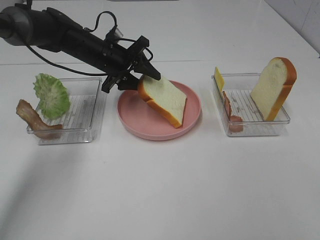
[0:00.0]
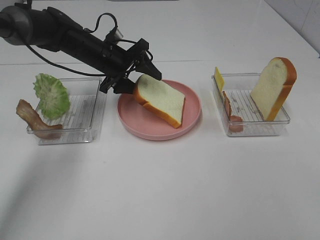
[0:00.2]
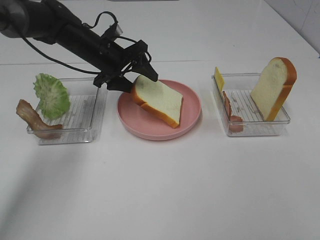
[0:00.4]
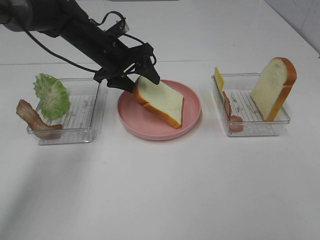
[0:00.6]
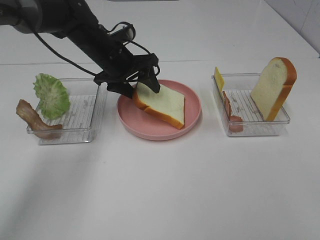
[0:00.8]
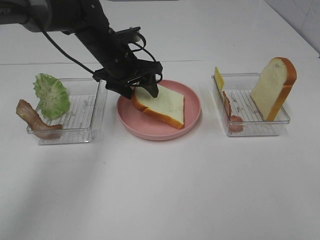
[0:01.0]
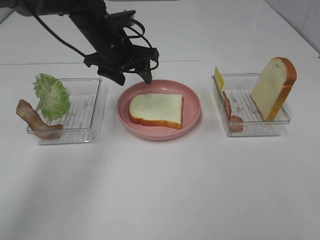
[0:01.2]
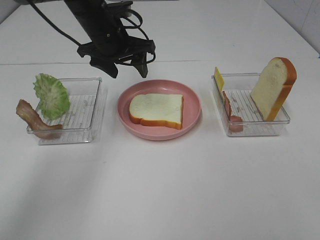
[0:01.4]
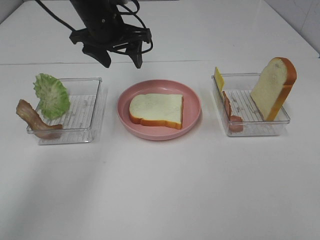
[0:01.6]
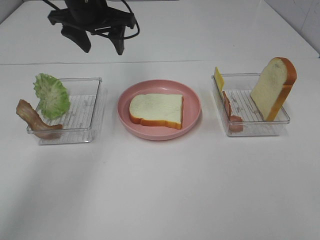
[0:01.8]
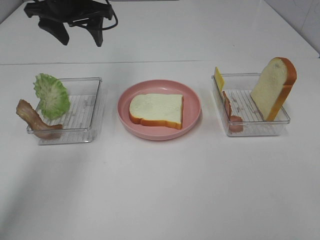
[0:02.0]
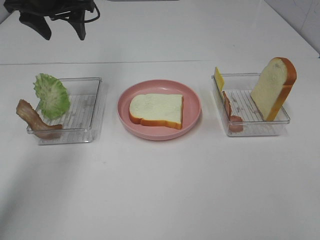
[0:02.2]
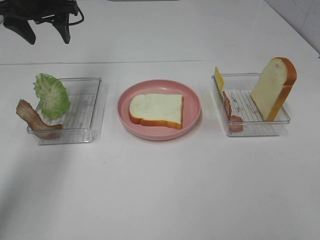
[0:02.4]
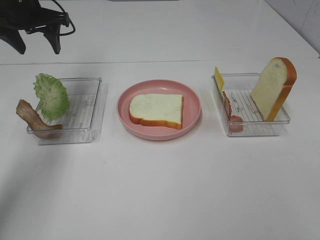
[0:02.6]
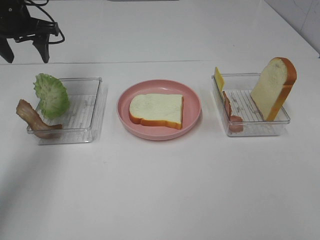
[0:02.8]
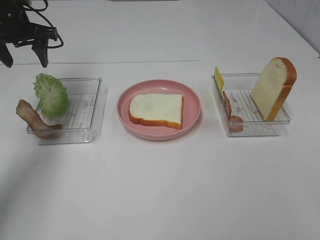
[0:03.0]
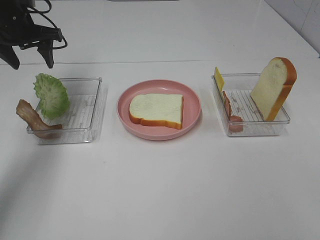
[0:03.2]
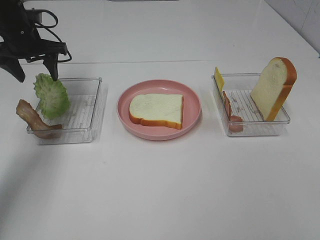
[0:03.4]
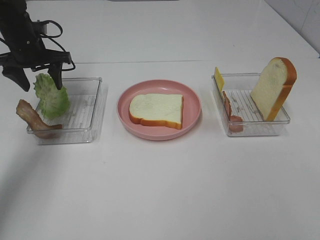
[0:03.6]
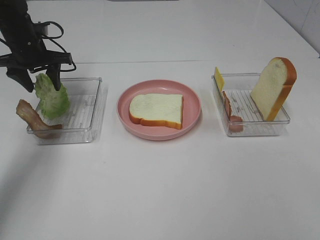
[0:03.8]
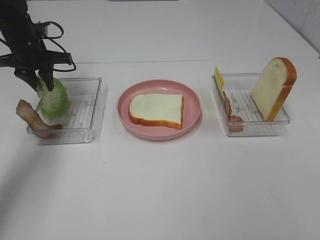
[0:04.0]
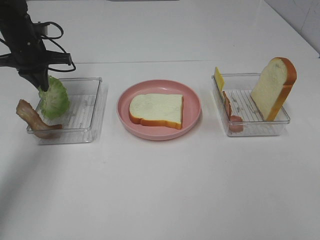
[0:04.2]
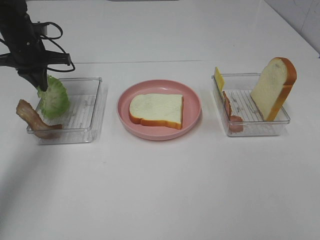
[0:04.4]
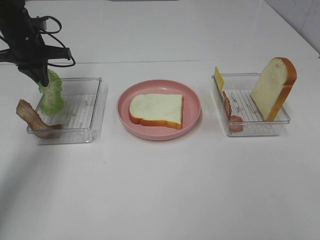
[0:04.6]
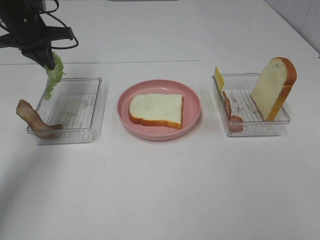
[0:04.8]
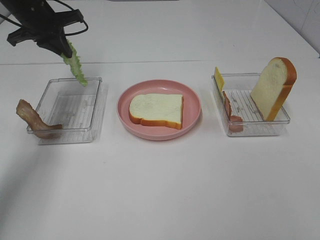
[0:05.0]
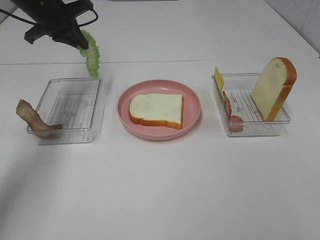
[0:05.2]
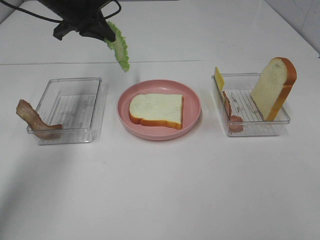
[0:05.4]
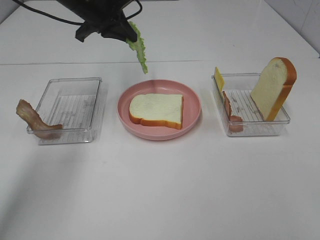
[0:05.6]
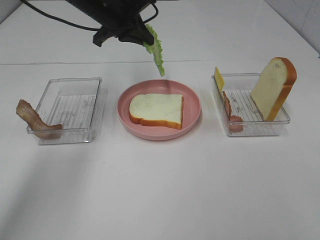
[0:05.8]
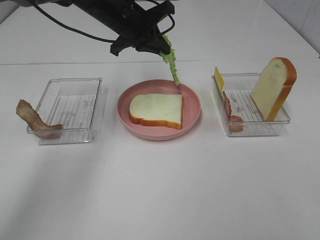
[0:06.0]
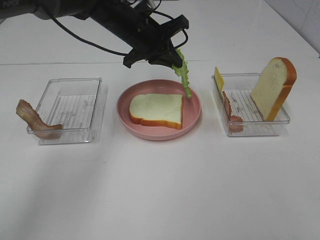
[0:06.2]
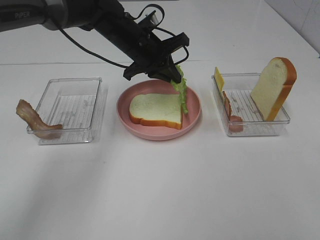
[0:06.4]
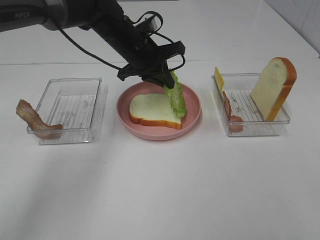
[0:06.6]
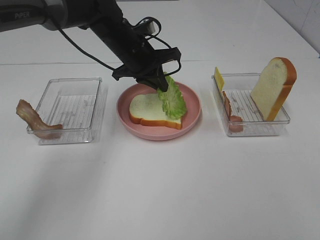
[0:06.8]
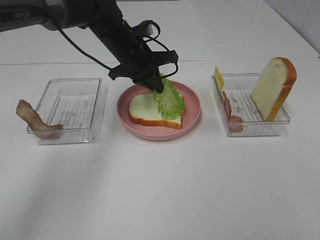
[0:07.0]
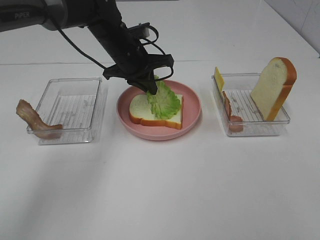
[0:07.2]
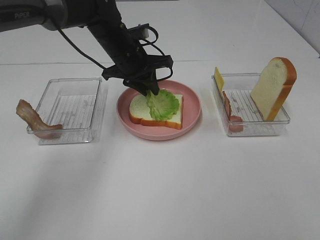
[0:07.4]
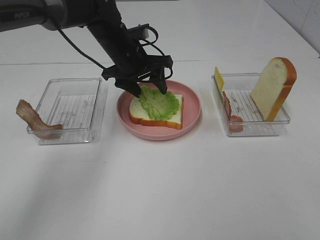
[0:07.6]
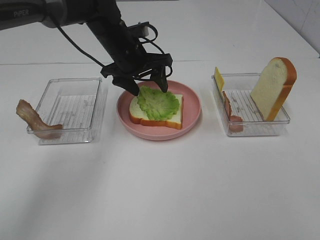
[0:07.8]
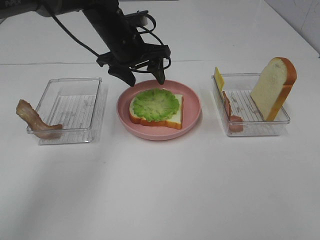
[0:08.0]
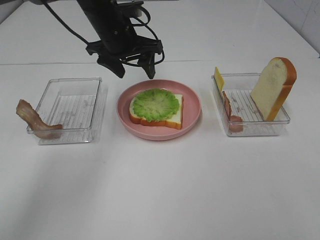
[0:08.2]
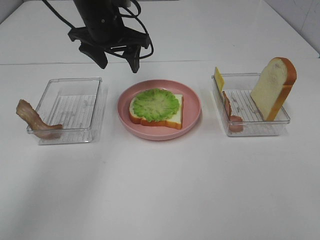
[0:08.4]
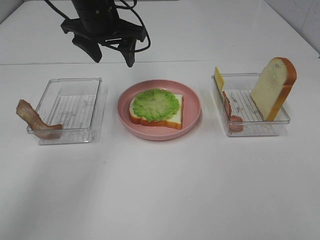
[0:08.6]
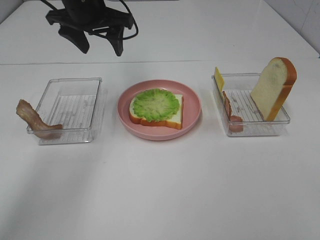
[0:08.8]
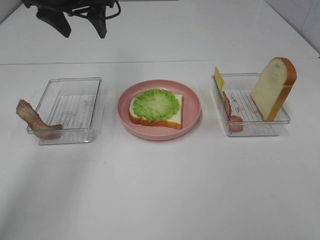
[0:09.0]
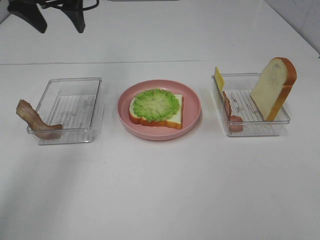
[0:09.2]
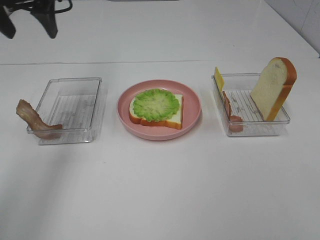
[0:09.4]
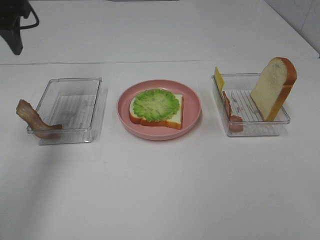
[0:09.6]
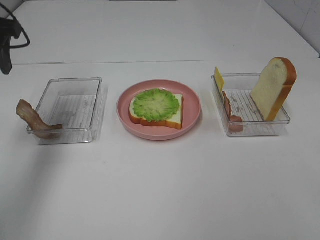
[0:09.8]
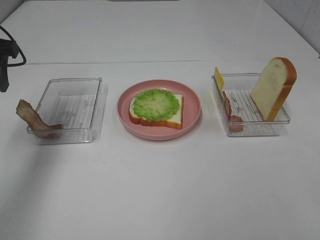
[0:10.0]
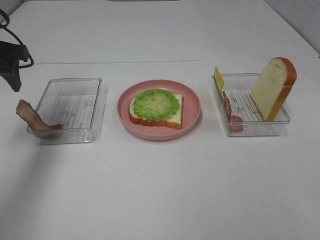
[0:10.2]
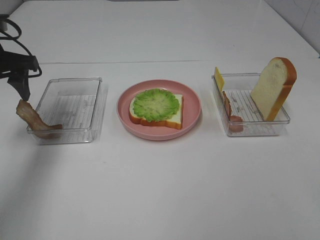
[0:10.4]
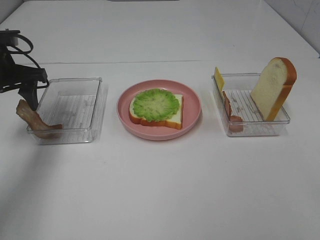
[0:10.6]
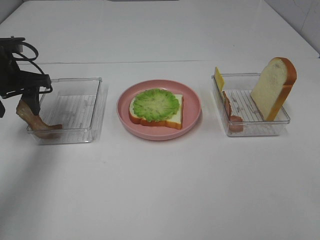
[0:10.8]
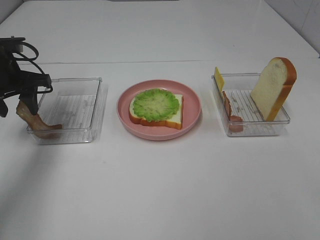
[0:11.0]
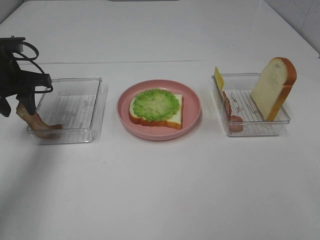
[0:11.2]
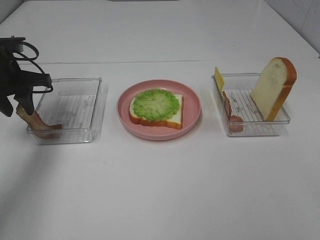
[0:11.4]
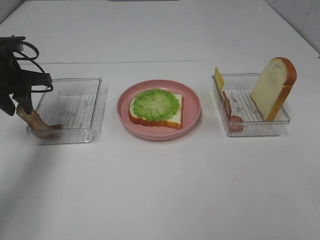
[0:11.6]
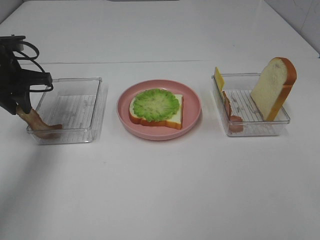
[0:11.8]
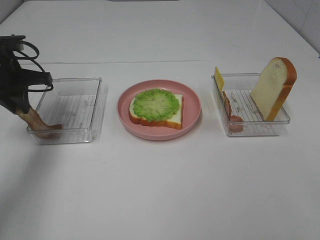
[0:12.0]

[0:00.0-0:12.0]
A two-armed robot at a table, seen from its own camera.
Task of the whole recording: Make sandwiches.
Step, 0:01.6 to 0:04.2: Left hand:grab the lettuce slice.
Step, 0:04.4 to 0:08.0: Left hand:place the lettuce slice on the bread slice.
0:00.0 to 0:01.6: The left gripper goes approximately 10 cm upward.
0:01.6 to 0:03.0: The left gripper shifts approximately 15 cm to the left.
0:03.0 to 0:04.4: The left gripper heads downward, covering some 5 cm, and closes its fingers.
0:04.4 to 0:06.0: The left gripper is displaced to the right by about 20 cm.
0:06.0 to 0:07.6: The left gripper heads downward, covering roughly 5 cm, and opens.
0:07.6 to 0:09.0: The left gripper shifts approximately 20 cm upward and to the left.
0:09.0 to 0:10.4: The left gripper moves to the left, downward and backward, approximately 15 cm.
0:10.4 to 0:12.0: The left gripper closes its fingers.

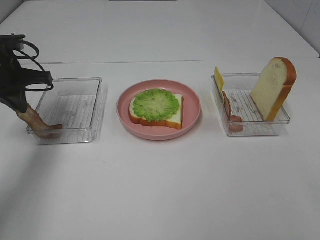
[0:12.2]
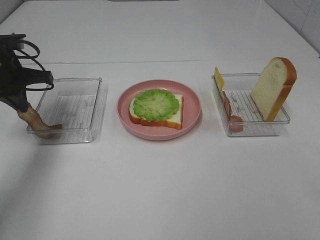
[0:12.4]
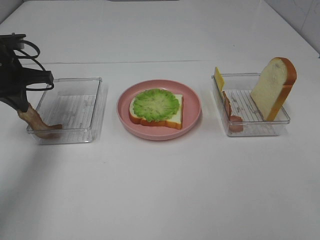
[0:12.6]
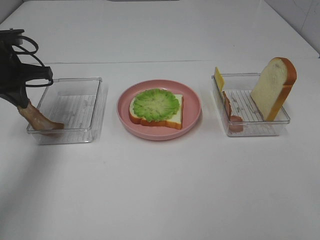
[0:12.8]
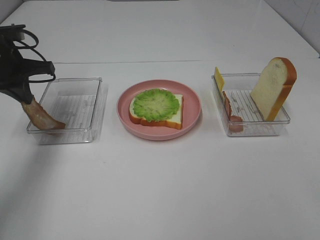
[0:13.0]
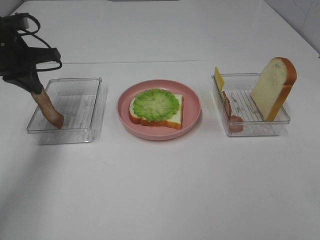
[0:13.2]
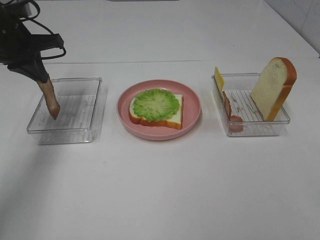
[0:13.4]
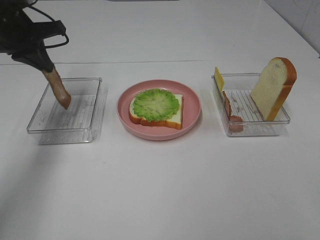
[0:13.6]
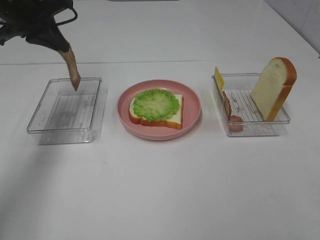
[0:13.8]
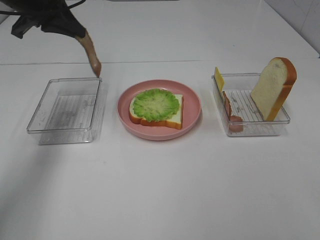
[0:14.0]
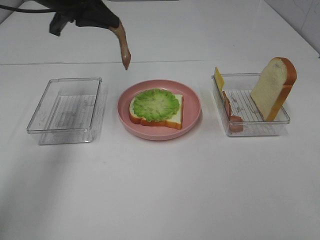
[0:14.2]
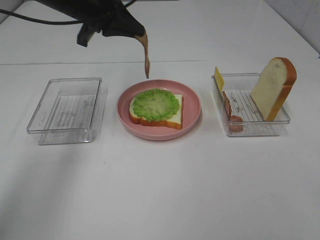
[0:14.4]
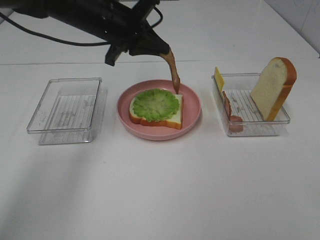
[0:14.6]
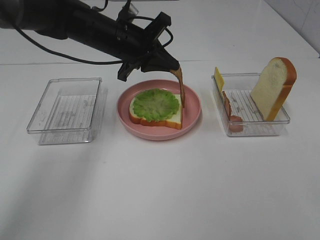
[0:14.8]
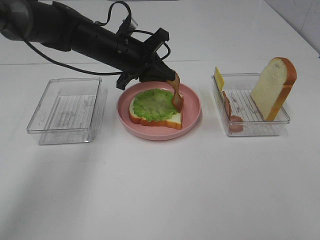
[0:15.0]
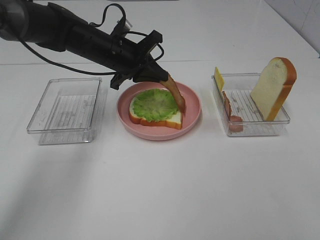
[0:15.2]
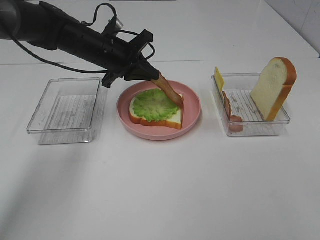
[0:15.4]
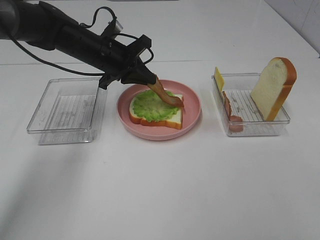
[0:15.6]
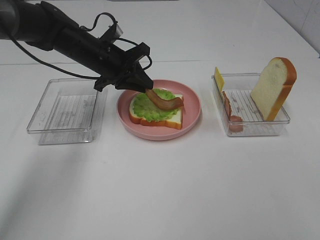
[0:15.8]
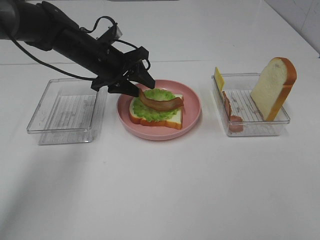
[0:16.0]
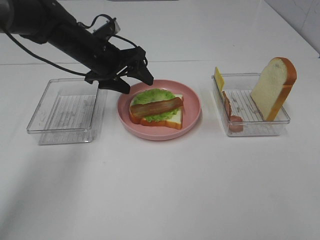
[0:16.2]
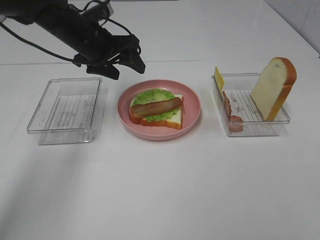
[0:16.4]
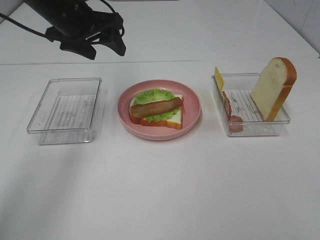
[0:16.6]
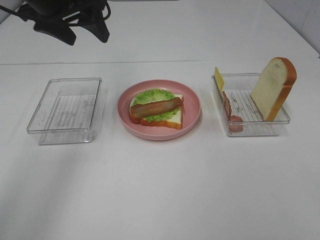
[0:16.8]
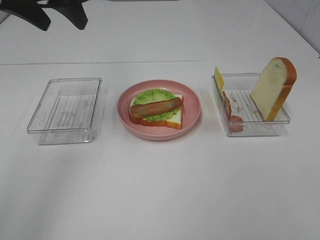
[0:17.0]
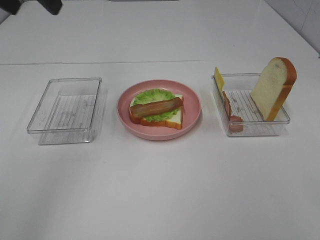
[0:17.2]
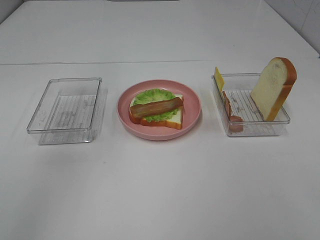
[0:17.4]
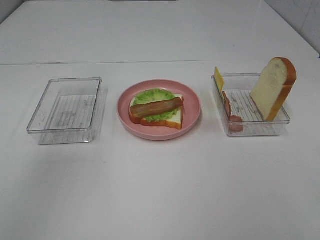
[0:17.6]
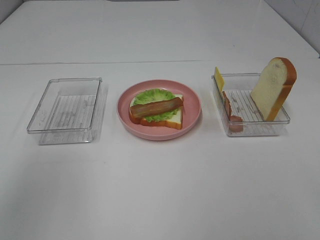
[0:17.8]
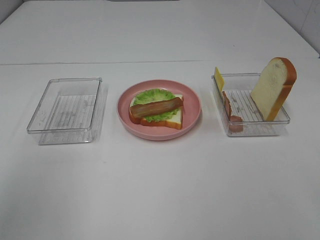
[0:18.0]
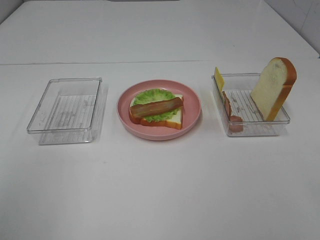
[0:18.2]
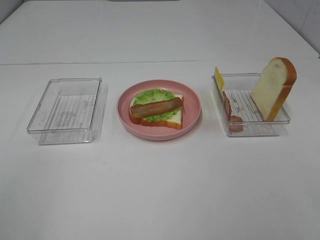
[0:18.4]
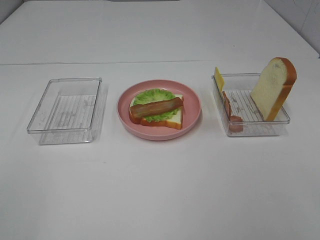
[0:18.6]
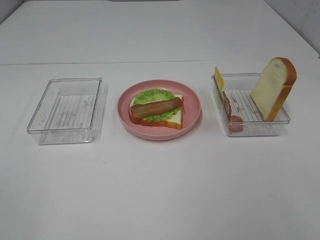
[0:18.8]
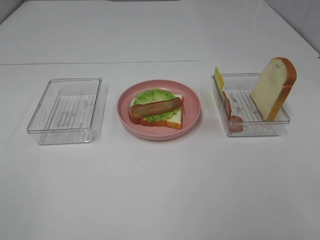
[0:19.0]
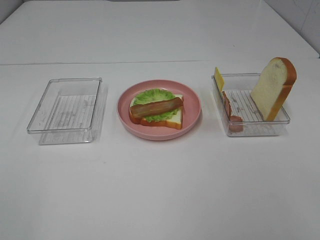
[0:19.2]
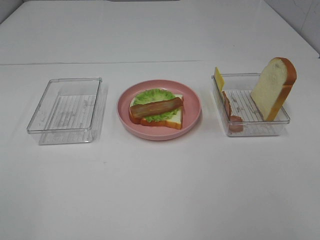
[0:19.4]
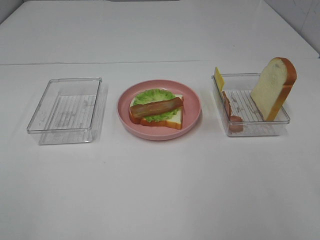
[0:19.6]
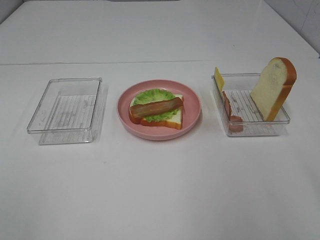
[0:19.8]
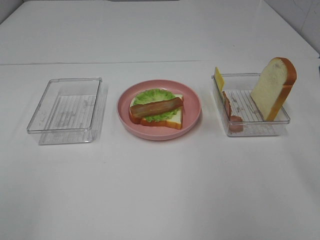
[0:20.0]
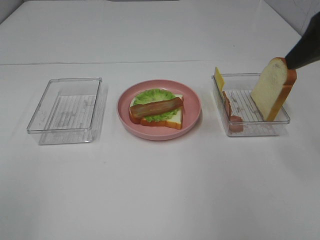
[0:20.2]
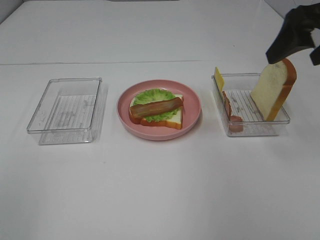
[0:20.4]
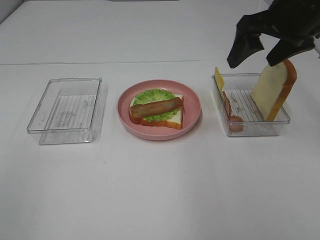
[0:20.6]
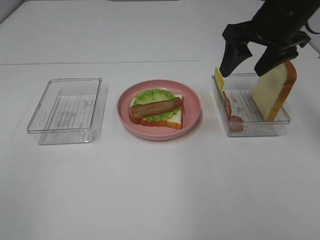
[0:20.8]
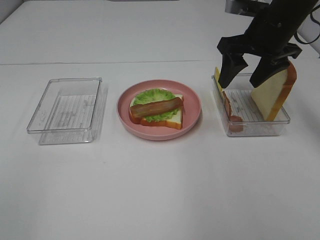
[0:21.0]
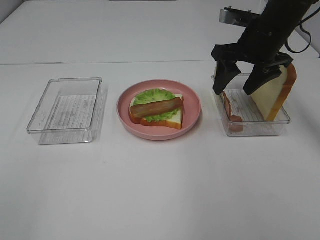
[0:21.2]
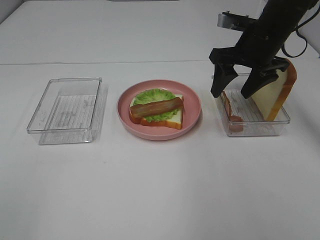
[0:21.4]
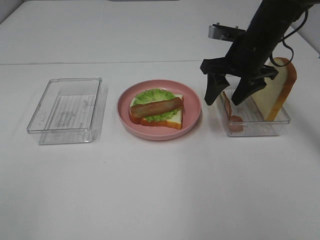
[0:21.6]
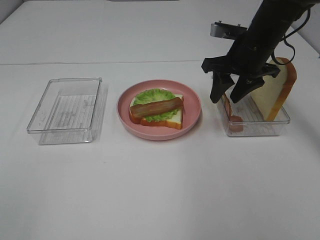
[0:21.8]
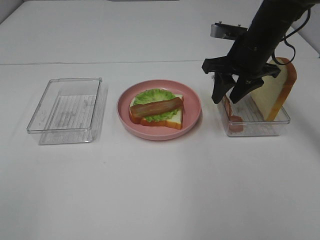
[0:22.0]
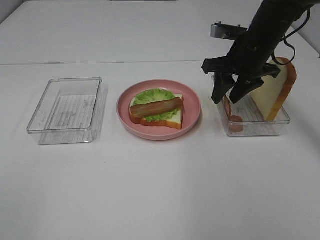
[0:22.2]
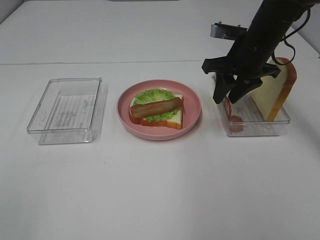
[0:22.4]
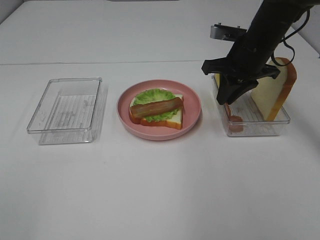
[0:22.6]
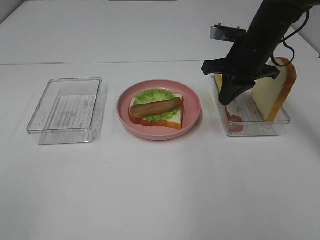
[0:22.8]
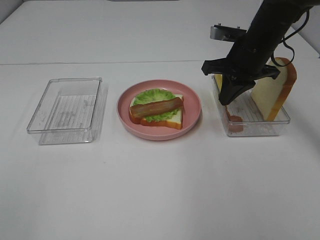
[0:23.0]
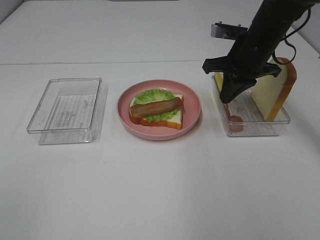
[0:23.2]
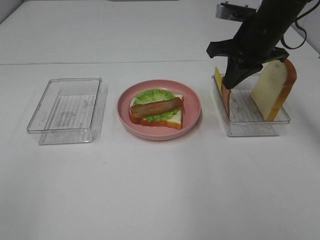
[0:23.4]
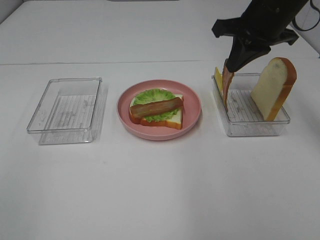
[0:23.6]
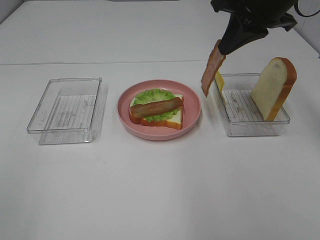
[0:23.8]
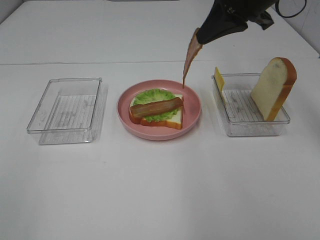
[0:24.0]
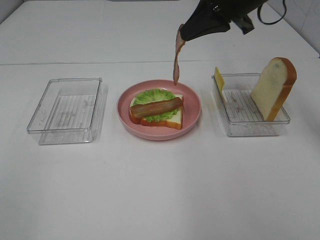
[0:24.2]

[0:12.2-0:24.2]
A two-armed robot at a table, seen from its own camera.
Task of the whole recording: Make sandwiches.
Step, 0:12.8 to 0:16.2: Left hand:place bacon on lettuce slice.
Step, 0:16.4 to 0:23.0: Right hand:grab the bacon.
0:12.2 to 0:13.8: The left gripper heads upward, covering about 10 cm.
0:13.8 to 0:15.2: The left gripper heads to the right and downward, covering roughly 20 cm.
0:15.2 to 0:16.6: The left gripper travels upward and to the left by some 10 cm, and opens.
0:16.6 to 0:18.2: The left gripper shifts about 35 cm backward.
0:19.8 to 0:21.2: The right gripper heads forward, covering roughly 30 cm.
0:21.2 to 0:22.6: The right gripper closes its fingers.
0:22.6 to 0:24.2: The right gripper is displaced upward by roughly 10 cm.
